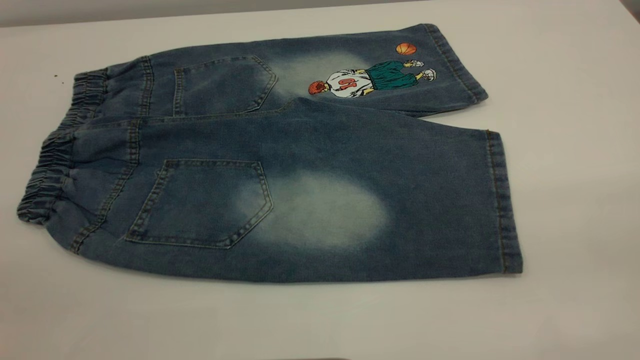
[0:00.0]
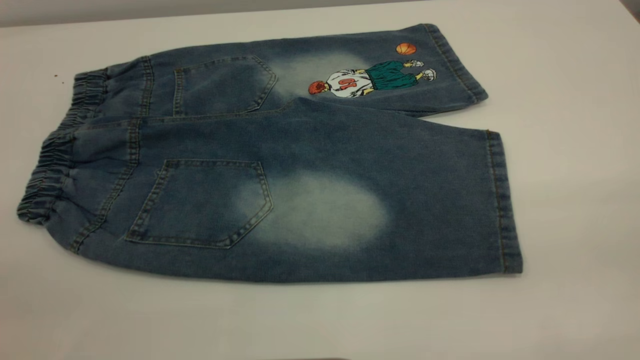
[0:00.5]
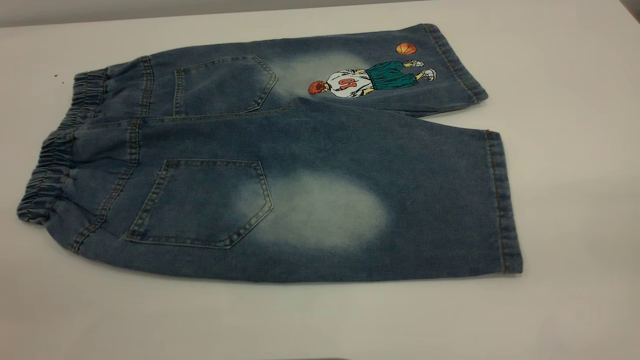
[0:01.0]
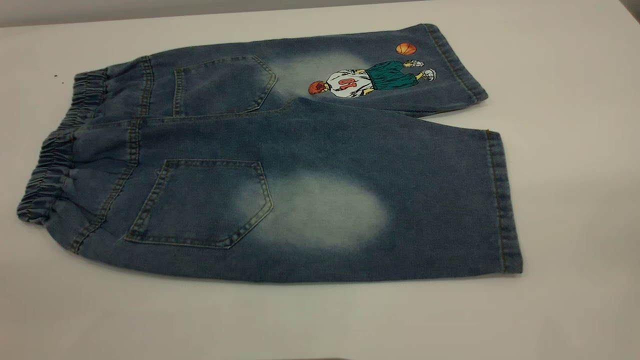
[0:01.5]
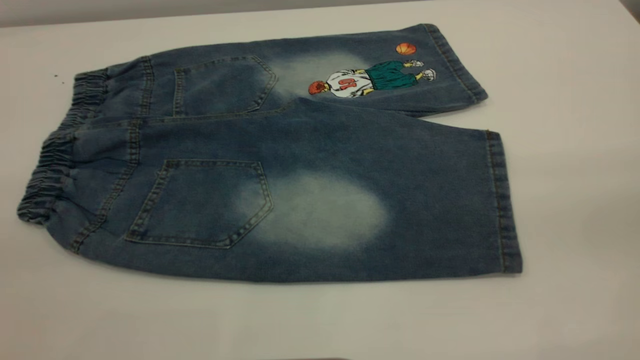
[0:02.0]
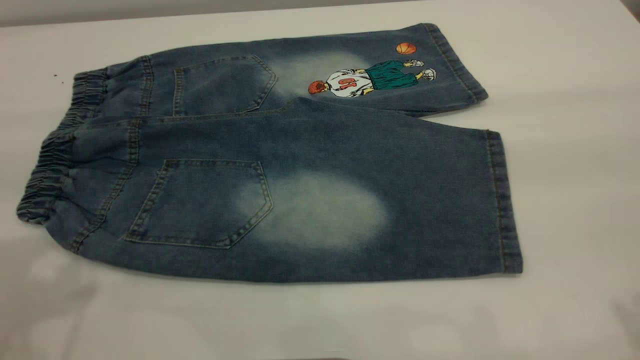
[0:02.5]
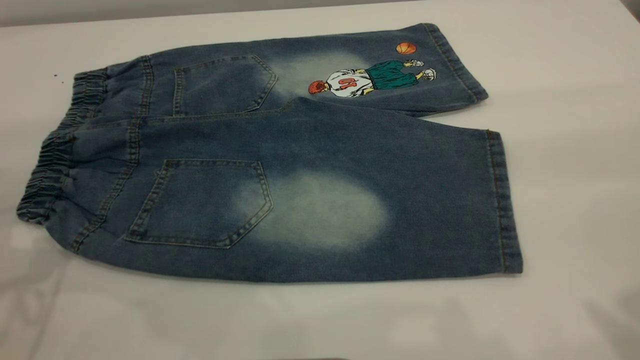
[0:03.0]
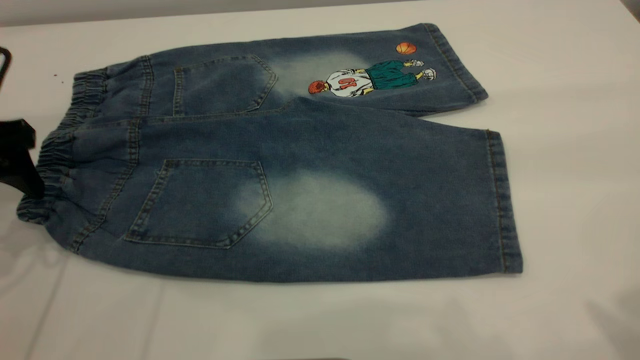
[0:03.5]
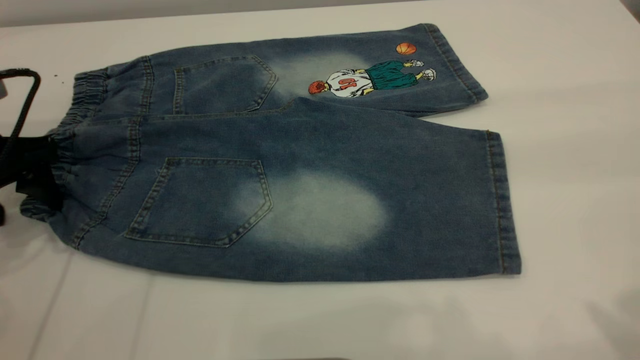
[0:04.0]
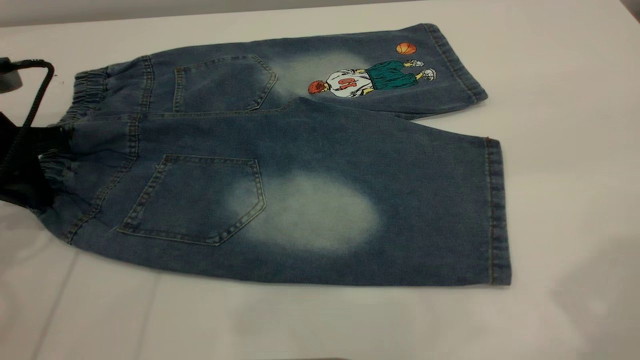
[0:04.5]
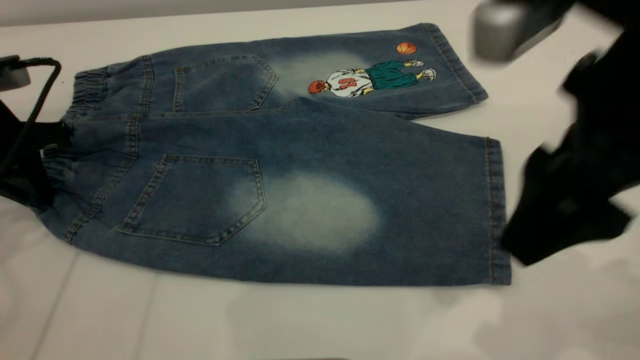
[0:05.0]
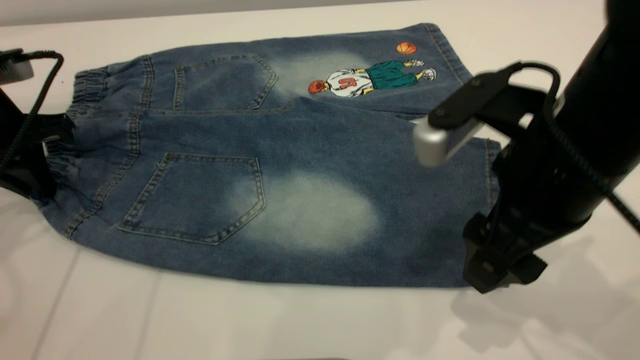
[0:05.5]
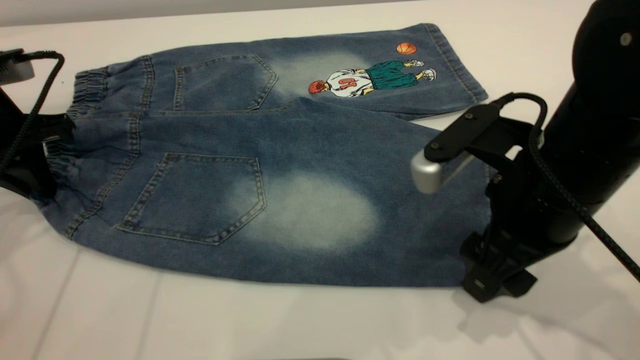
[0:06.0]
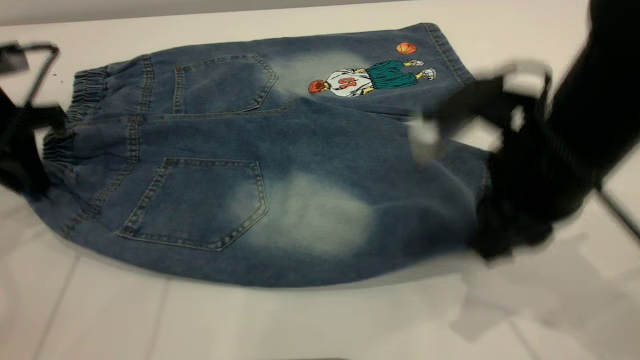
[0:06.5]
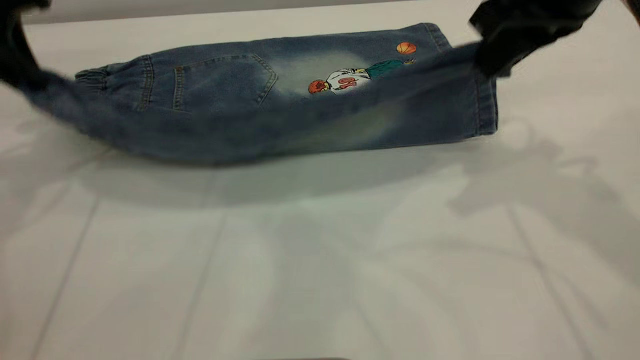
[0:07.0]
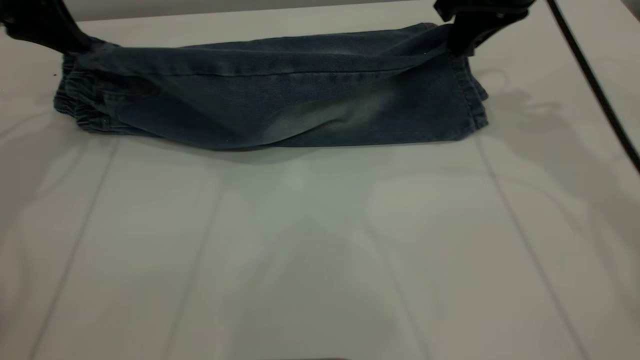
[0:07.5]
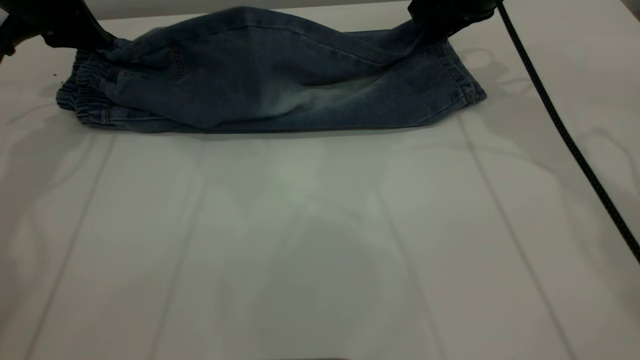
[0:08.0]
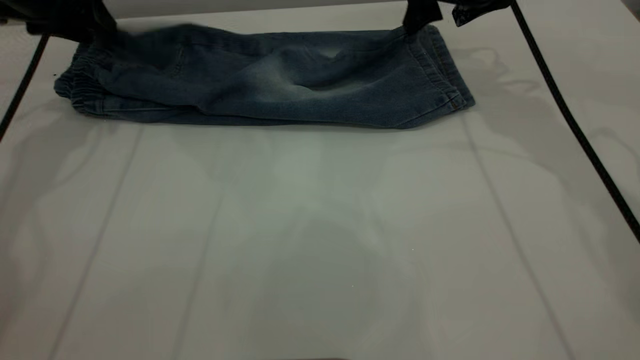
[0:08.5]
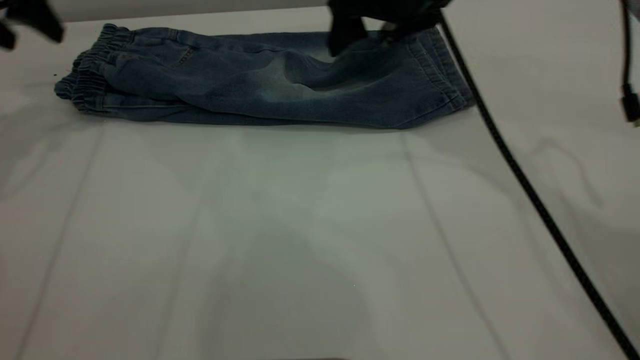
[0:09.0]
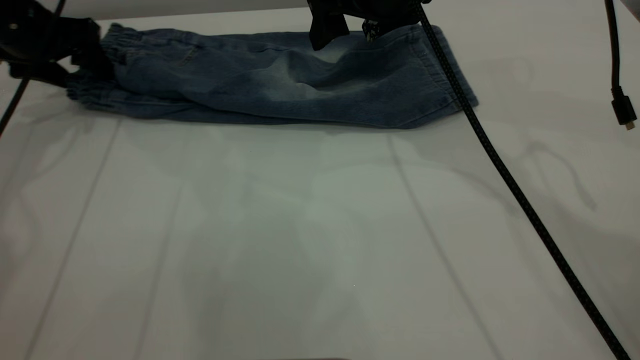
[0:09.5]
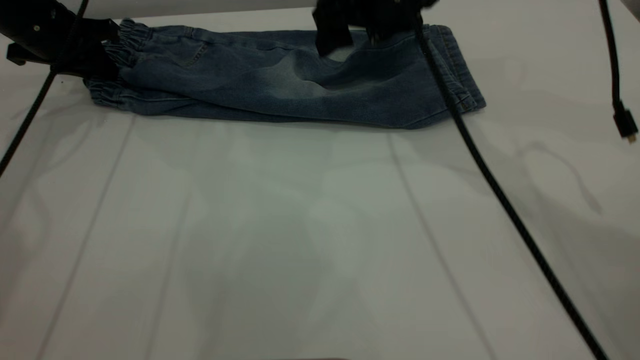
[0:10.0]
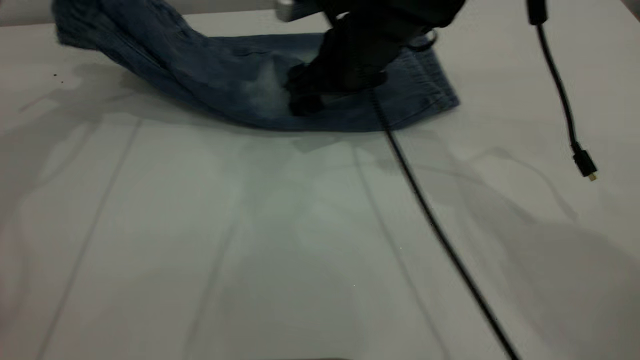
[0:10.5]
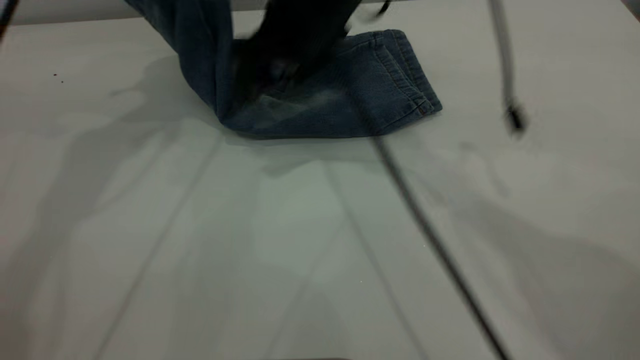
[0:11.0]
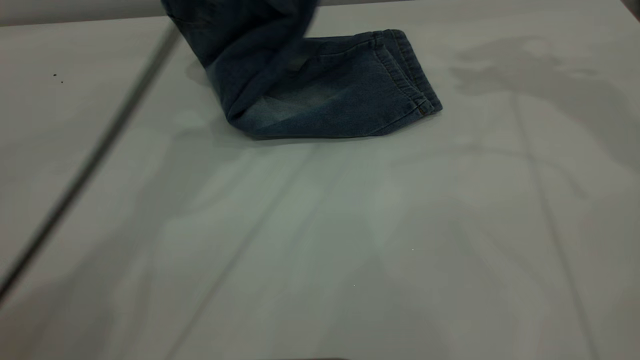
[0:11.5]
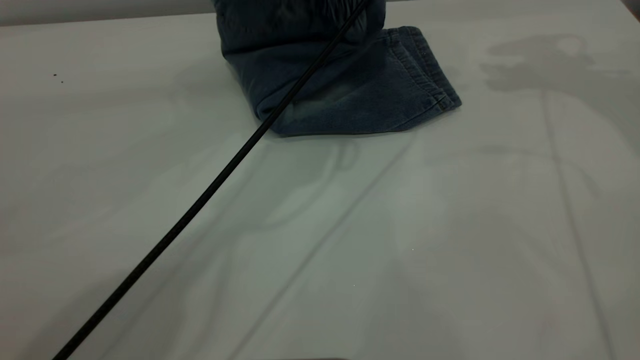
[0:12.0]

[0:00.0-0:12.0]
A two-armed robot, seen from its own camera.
Step, 0:00.0 to 0:09.0: Fold the bottom of the pants upward.
0:02.0 to 0:04.0: The left gripper travels forward and downward by roughly 35 cm.
0:04.0 to 0:06.0: The right gripper travels downward, forward and to the left by about 25 cm, while the left gripper closes.
0:06.0 to 0:08.0: The left gripper is displaced forward and upward by approximately 15 cm. Meanwhile the right gripper moves forward, approximately 25 cm, and closes its fingers.
0:08.0 to 0:10.0: The right gripper travels to the left by some 10 cm, and opens up, while the left gripper shifts by some 5 cm, and opens, then closes once more.
0:10.0 to 0:12.0: The right gripper heads to the right and upward, covering approximately 25 cm. Meanwhile the left gripper is displaced to the right by roughly 30 cm.

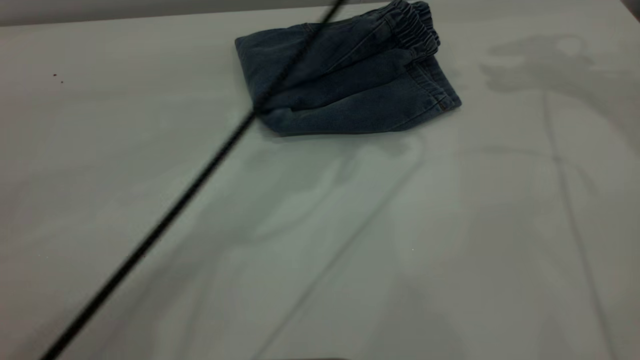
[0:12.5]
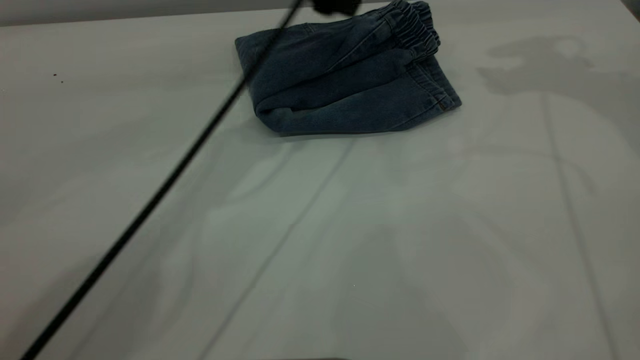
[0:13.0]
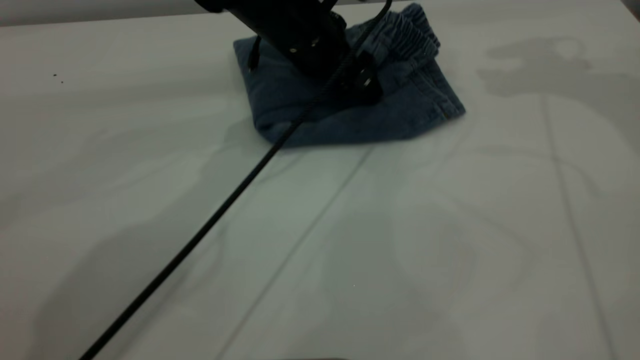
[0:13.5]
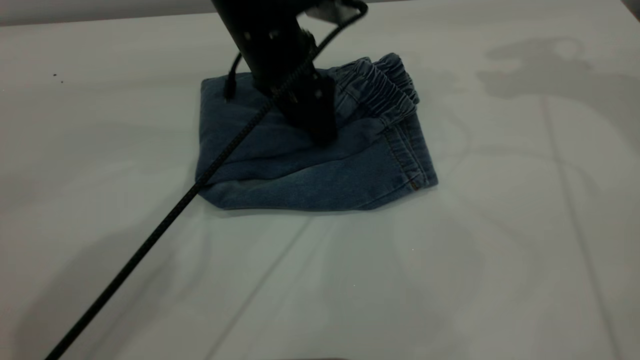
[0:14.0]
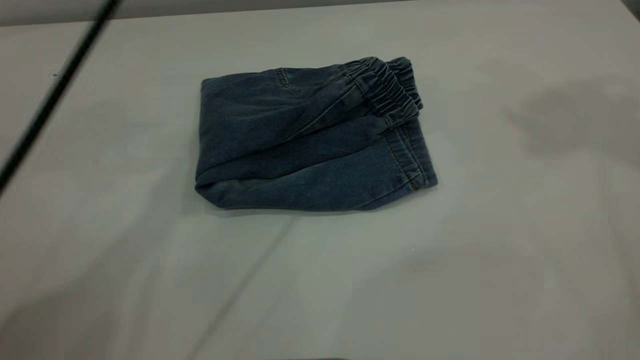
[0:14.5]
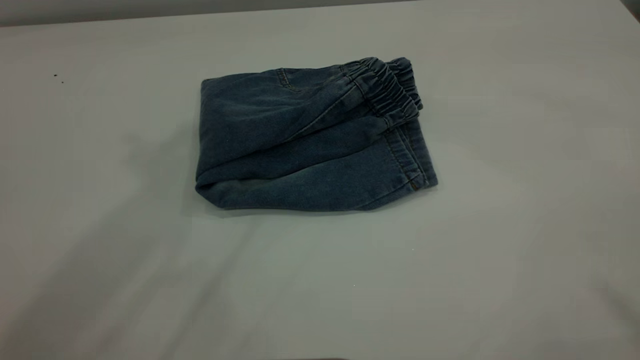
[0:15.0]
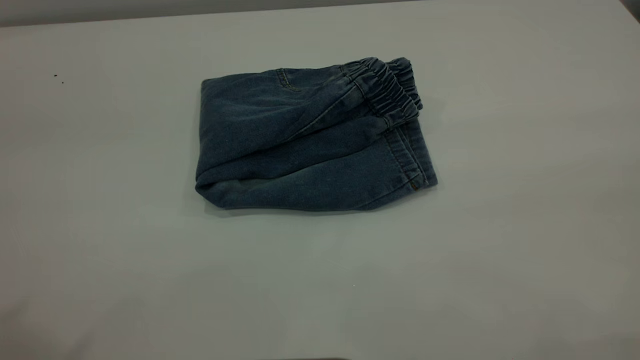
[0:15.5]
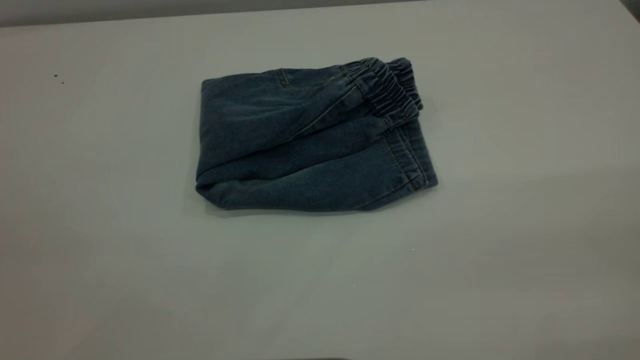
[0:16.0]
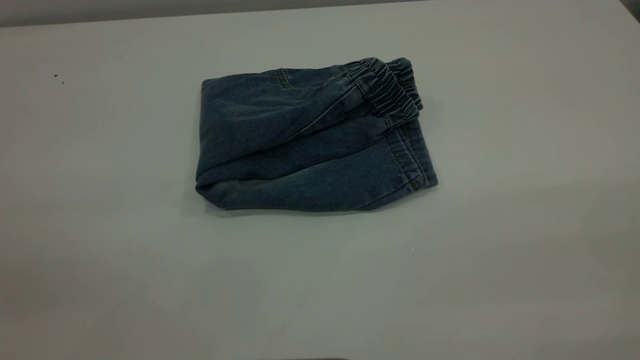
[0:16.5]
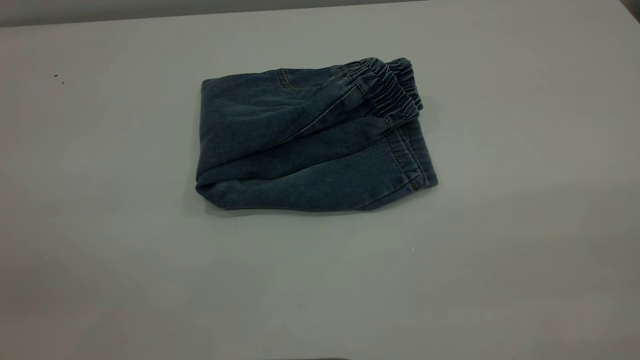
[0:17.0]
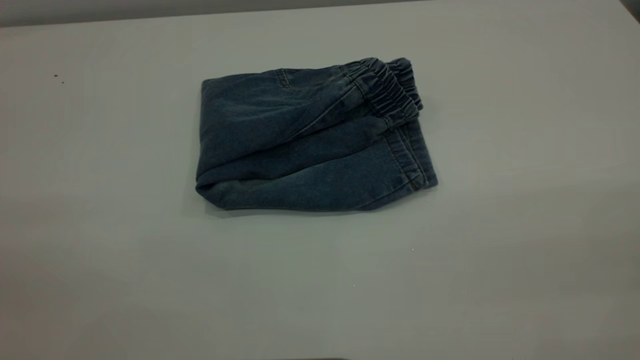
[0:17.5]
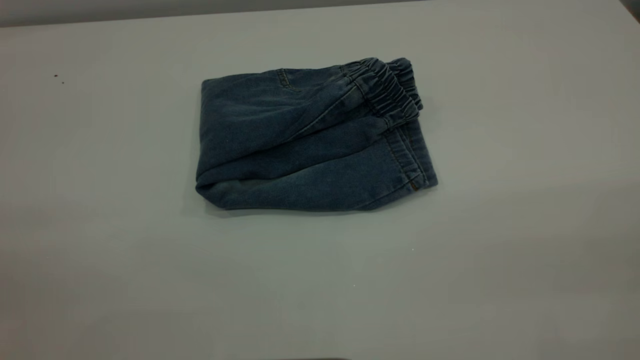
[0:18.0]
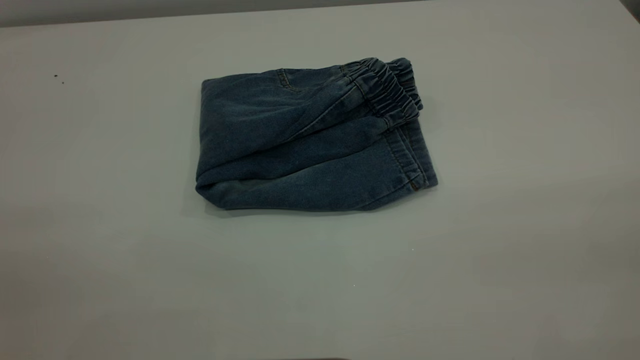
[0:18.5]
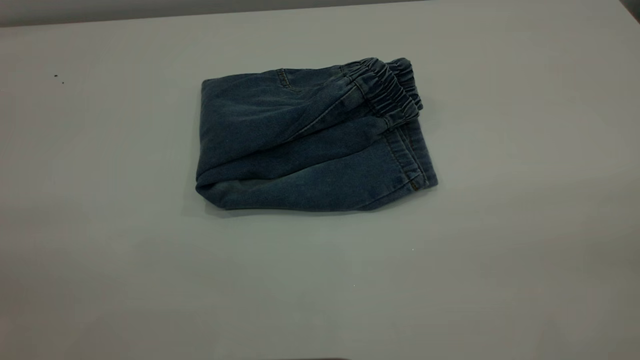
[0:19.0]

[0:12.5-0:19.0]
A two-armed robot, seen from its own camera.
0:12.5 to 0:14.5: The right gripper shifts about 25 cm upward and backward. Meanwhile the left gripper is displaced upward and to the left by approximately 10 cm.
0:14.5 to 0:17.0: The left gripper travels backward and to the left by about 40 cm.
